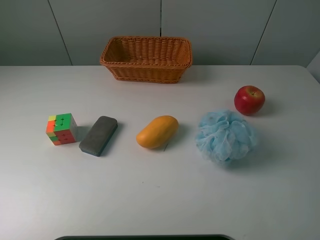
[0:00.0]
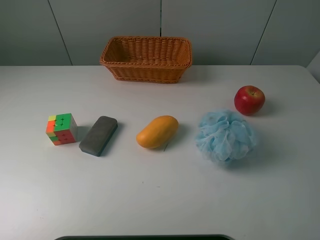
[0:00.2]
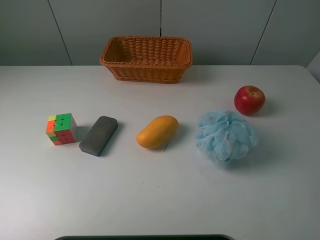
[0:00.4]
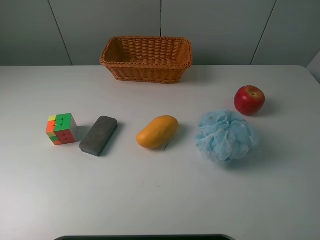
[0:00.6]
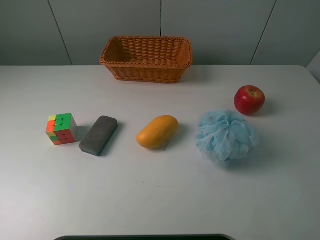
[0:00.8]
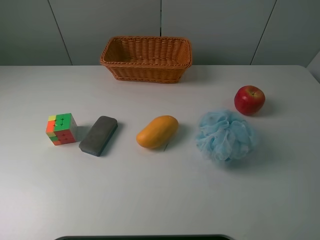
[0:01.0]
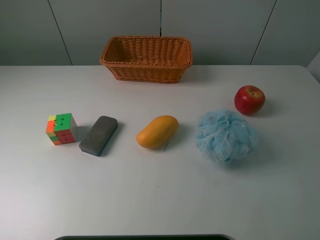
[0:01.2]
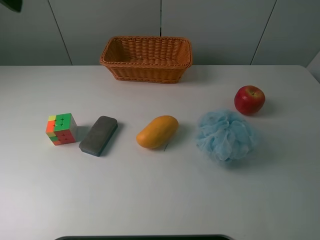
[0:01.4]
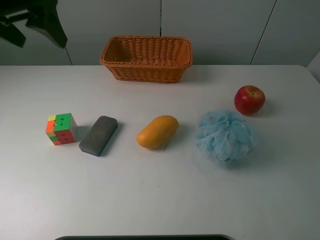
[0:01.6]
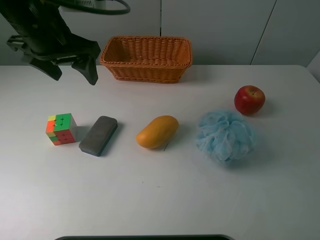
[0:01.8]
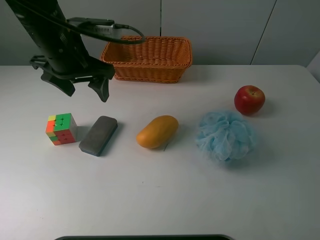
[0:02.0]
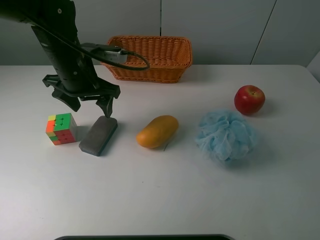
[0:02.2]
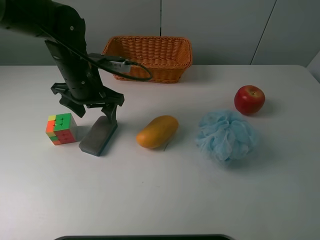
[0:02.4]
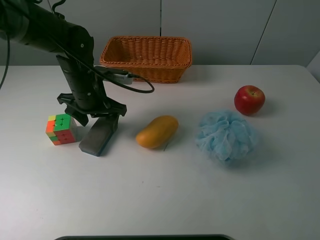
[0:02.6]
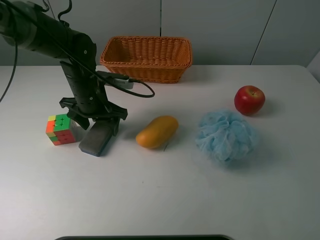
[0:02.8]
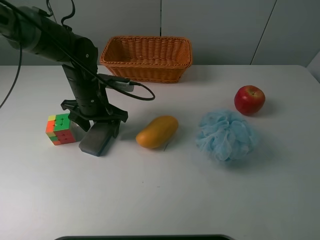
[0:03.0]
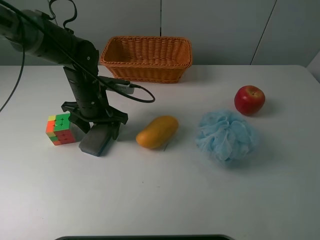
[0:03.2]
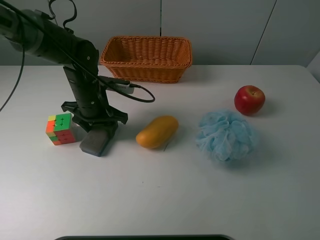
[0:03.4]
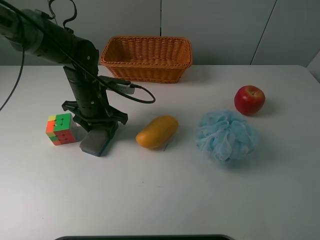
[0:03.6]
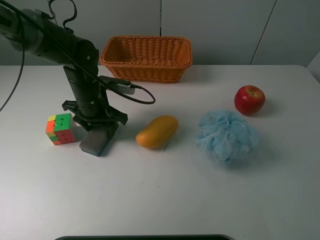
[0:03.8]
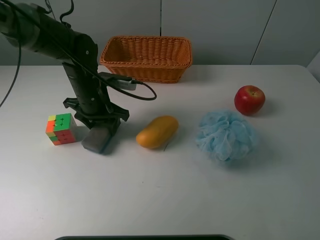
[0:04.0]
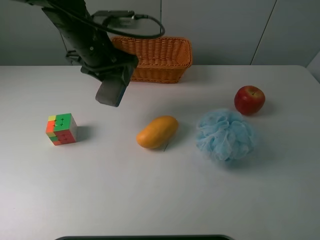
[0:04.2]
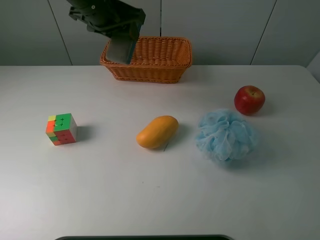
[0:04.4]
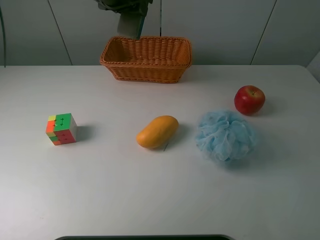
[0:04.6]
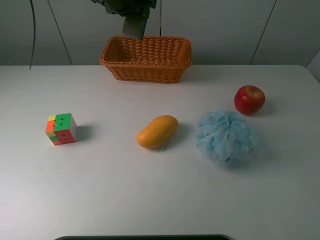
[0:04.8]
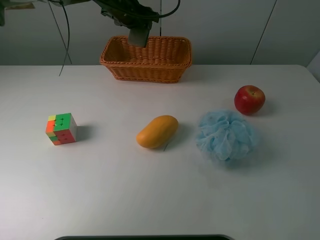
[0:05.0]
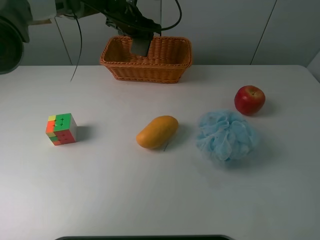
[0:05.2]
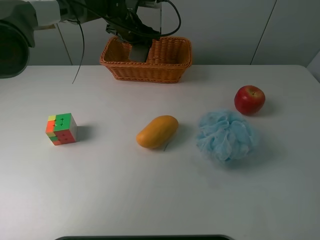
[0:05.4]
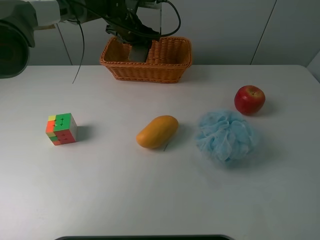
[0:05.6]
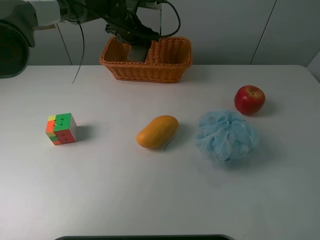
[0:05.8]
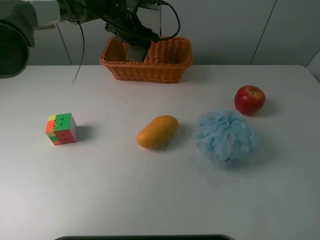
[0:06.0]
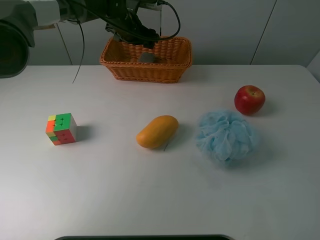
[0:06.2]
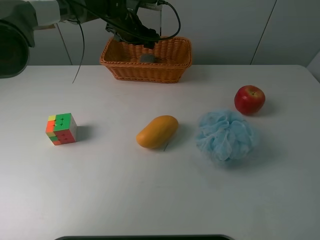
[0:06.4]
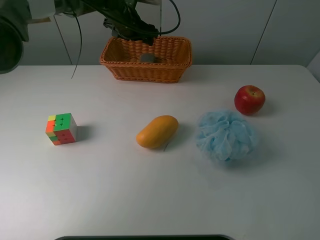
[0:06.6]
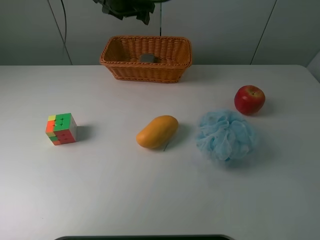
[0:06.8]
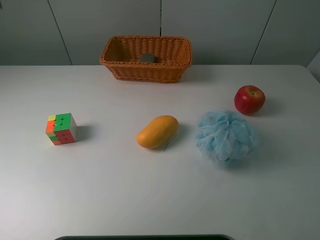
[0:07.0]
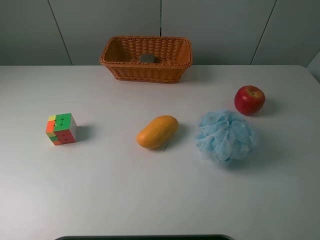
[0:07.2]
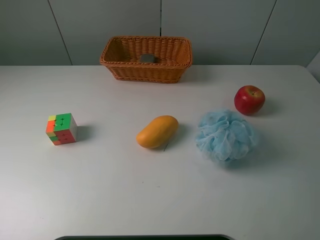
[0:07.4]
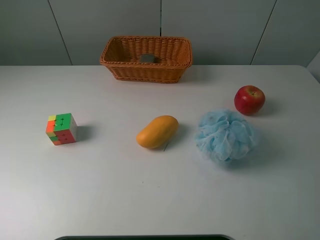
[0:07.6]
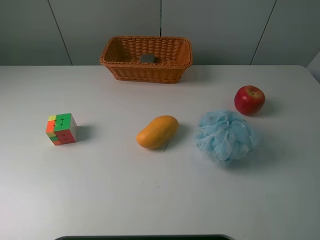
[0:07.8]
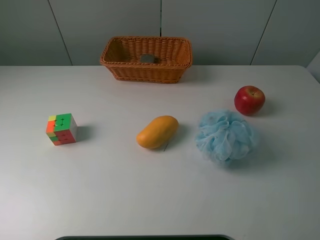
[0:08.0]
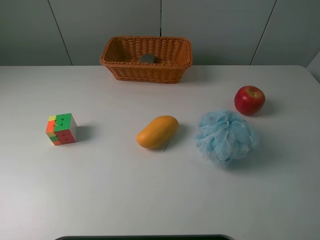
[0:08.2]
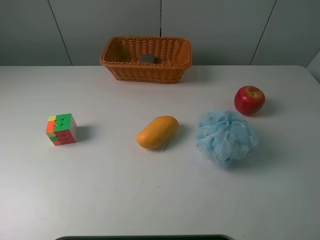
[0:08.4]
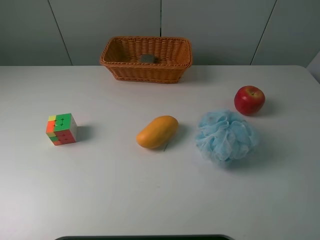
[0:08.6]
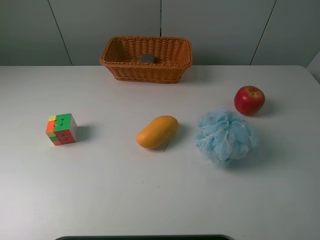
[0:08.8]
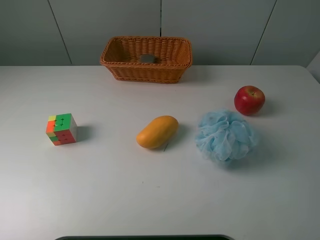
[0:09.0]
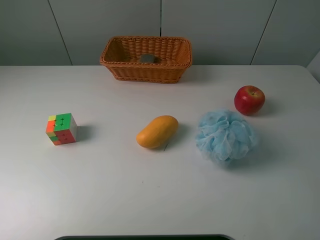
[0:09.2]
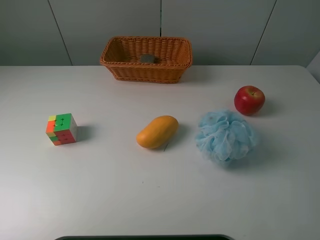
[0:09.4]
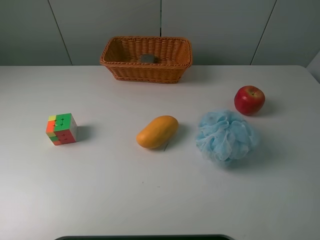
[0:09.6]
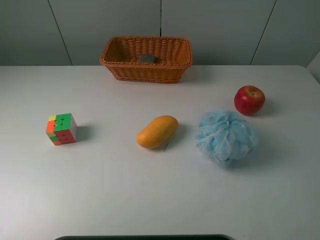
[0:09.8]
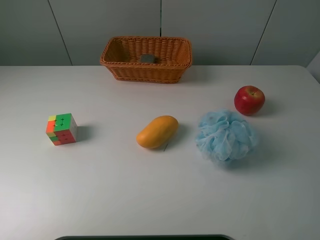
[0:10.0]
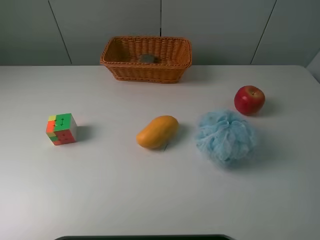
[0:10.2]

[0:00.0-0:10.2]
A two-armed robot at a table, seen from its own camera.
Task of the whole recording: use a picker to grab the item closest to the cube and place it in the basket.
Step, 0:00.0 to 0:03.6: Grasp the blackboard erasure with the left gripper.
Step, 0:03.8 to 0:06.2: Place the blackboard erasure into the basket with the left gripper.
0:01.4 to 0:03.0: The left gripper goes approximately 25 cm downward.
0:03.0 to 0:04.4: The left gripper travels upward by approximately 20 cm, and closes.
0:04.4 to 0:05.8: The left gripper goes about 20 cm forward and downward.
0:05.8 to 0:07.2: The left gripper is displaced upward and backward by about 40 cm, and opens up.
